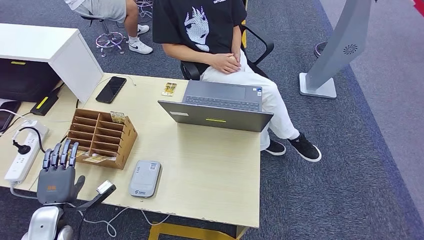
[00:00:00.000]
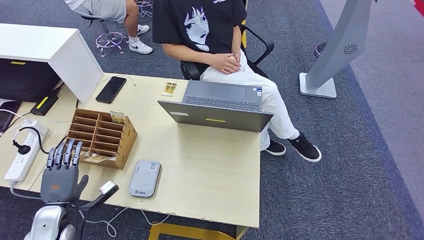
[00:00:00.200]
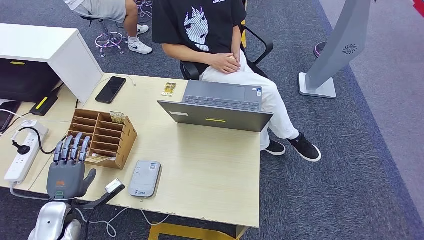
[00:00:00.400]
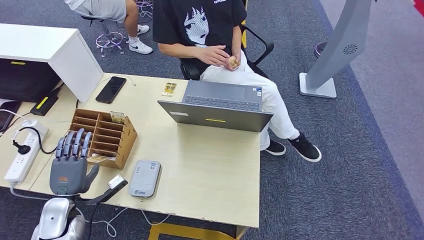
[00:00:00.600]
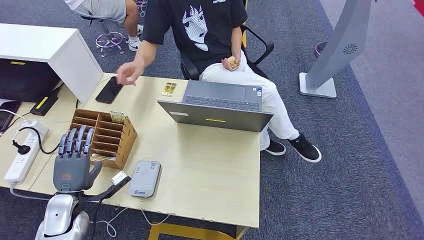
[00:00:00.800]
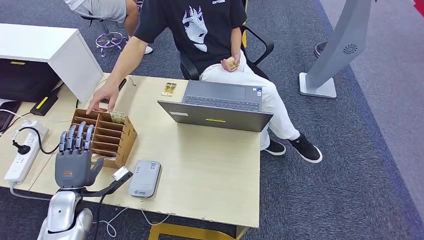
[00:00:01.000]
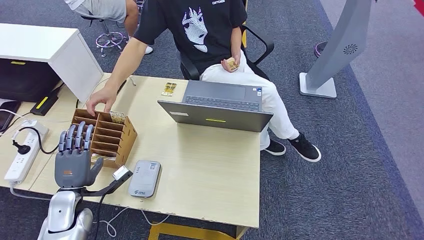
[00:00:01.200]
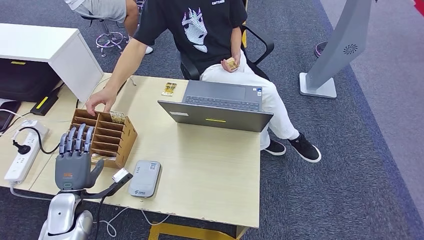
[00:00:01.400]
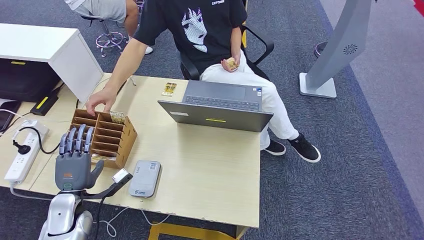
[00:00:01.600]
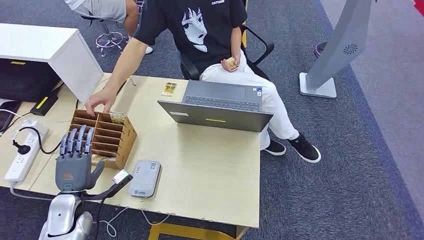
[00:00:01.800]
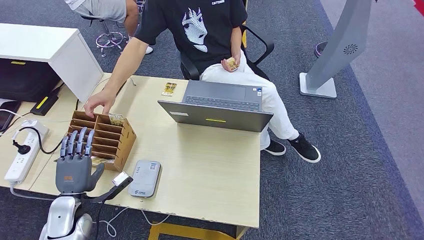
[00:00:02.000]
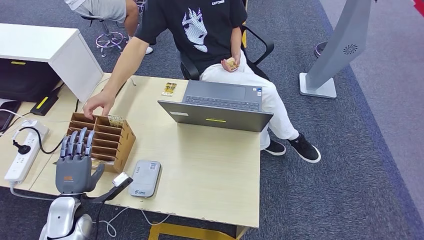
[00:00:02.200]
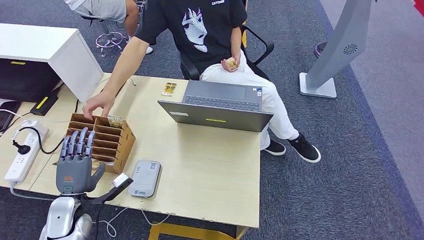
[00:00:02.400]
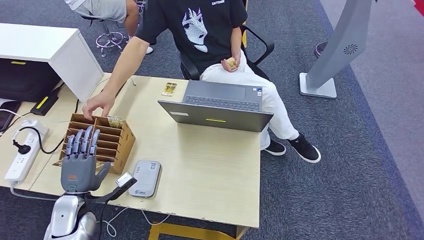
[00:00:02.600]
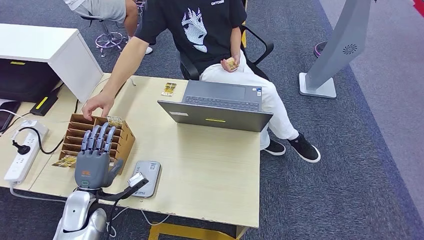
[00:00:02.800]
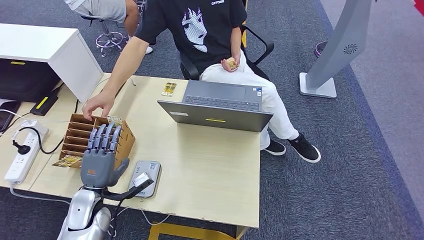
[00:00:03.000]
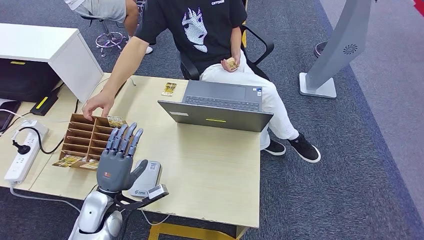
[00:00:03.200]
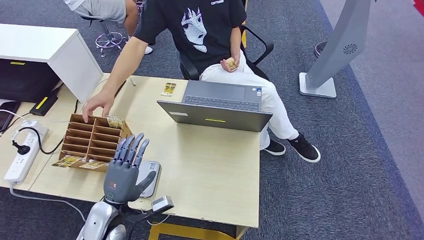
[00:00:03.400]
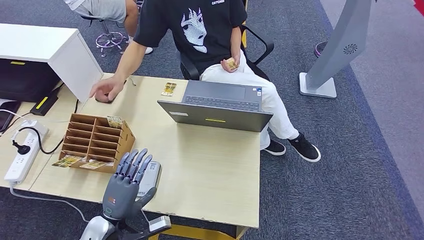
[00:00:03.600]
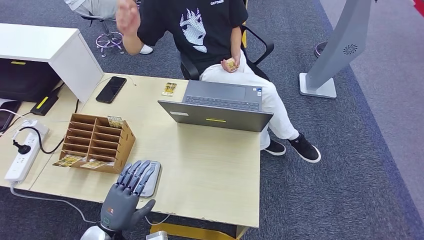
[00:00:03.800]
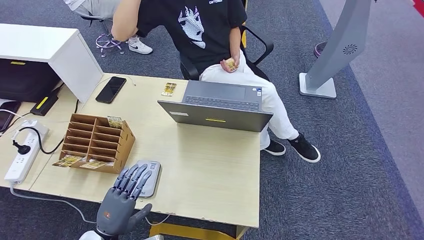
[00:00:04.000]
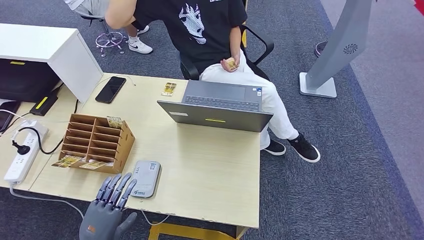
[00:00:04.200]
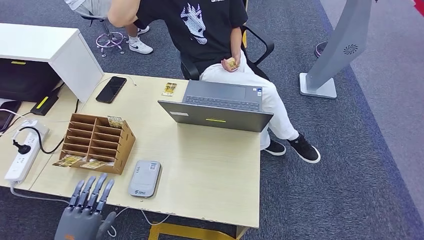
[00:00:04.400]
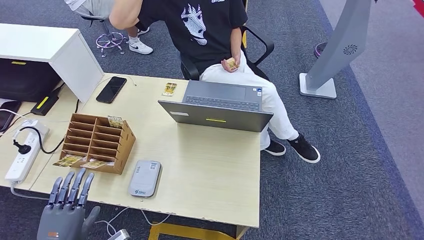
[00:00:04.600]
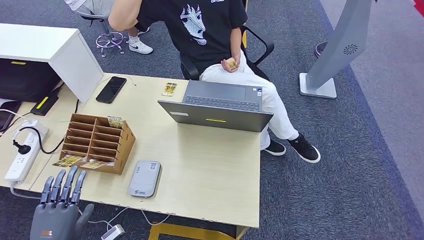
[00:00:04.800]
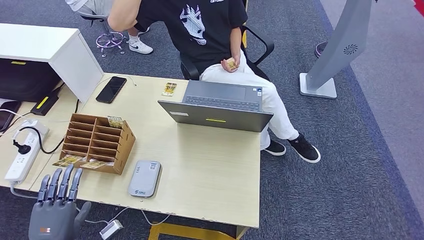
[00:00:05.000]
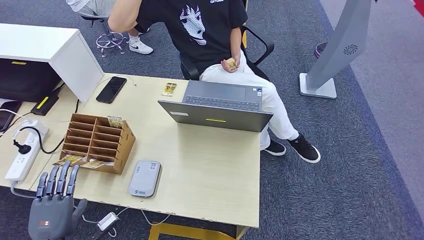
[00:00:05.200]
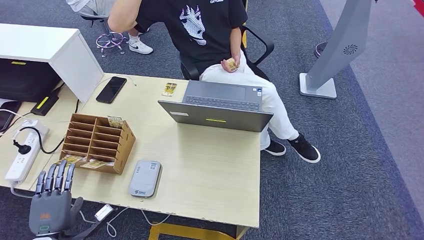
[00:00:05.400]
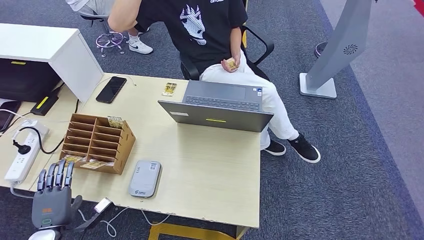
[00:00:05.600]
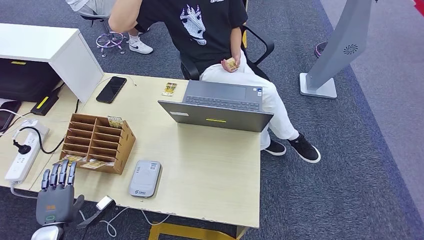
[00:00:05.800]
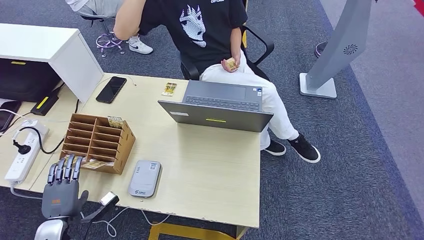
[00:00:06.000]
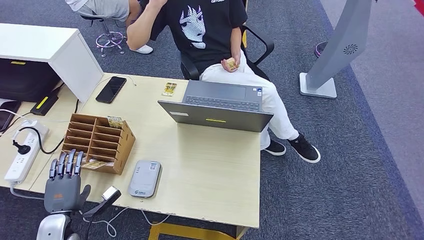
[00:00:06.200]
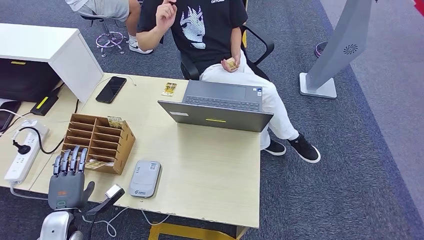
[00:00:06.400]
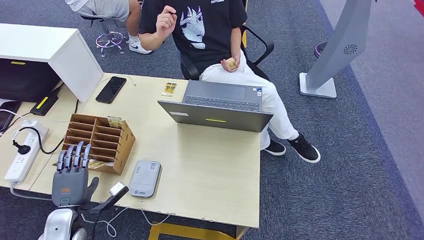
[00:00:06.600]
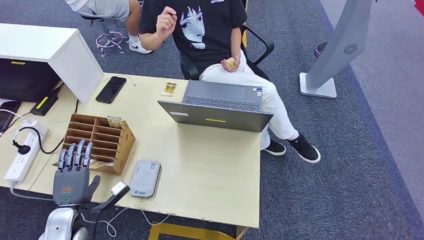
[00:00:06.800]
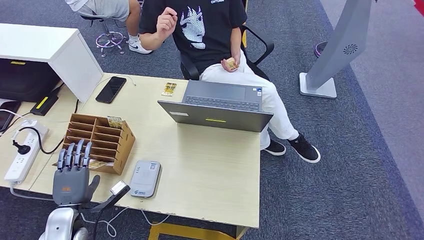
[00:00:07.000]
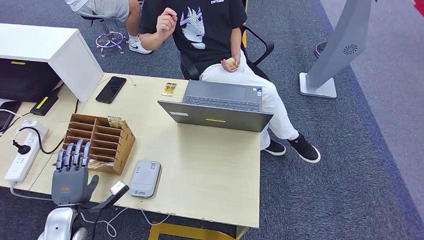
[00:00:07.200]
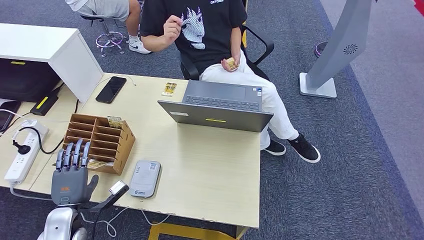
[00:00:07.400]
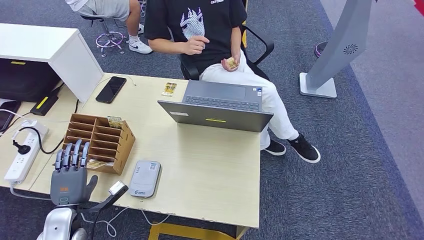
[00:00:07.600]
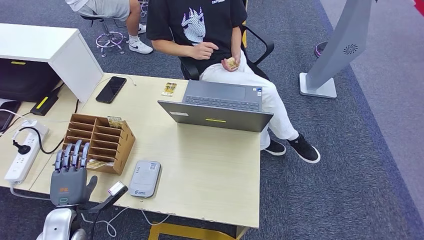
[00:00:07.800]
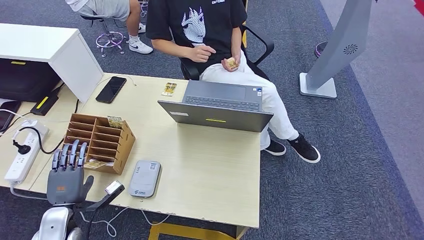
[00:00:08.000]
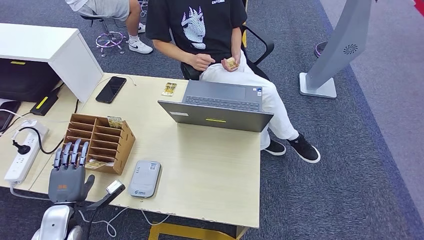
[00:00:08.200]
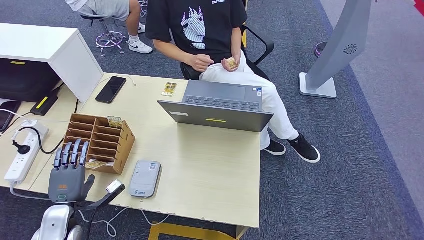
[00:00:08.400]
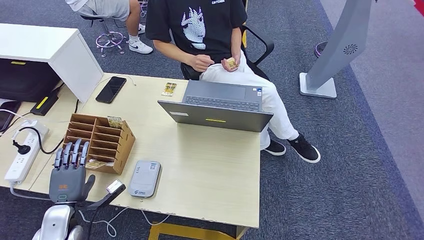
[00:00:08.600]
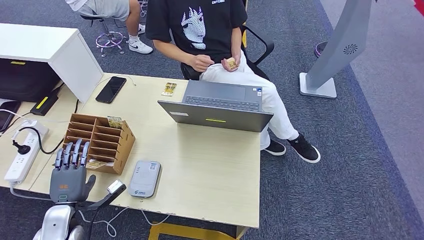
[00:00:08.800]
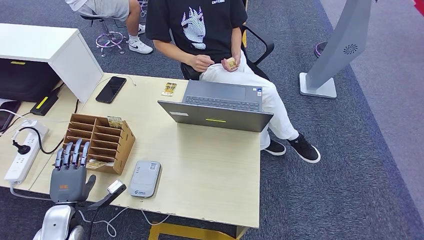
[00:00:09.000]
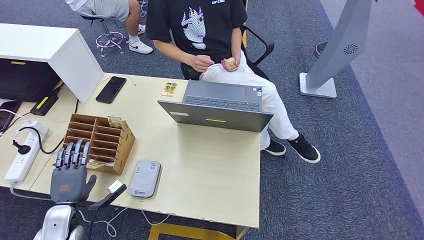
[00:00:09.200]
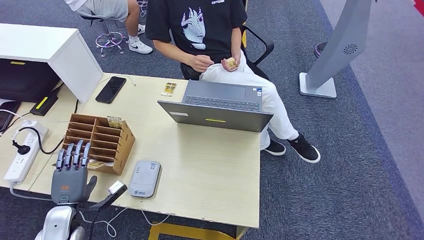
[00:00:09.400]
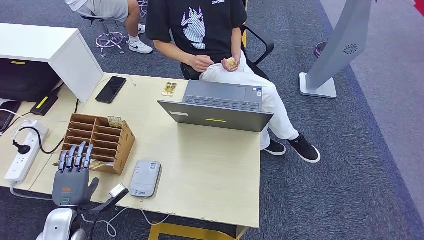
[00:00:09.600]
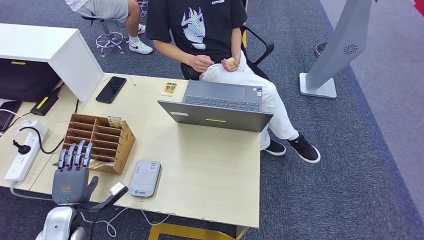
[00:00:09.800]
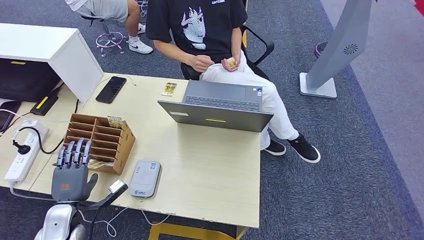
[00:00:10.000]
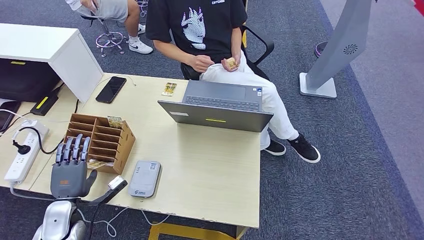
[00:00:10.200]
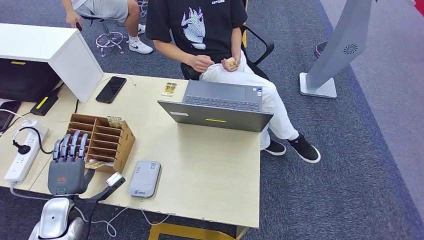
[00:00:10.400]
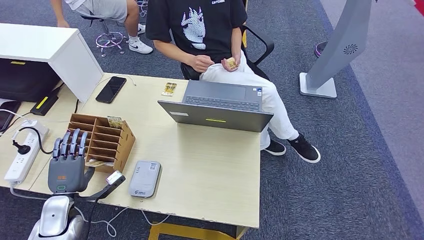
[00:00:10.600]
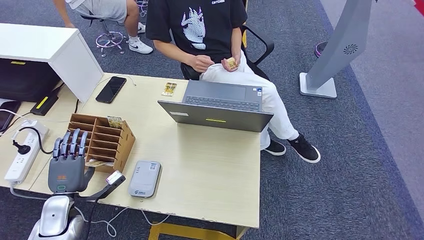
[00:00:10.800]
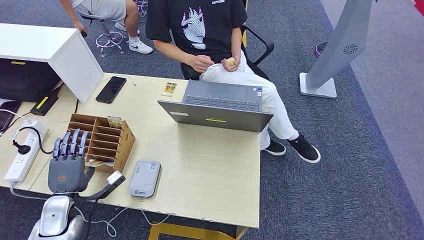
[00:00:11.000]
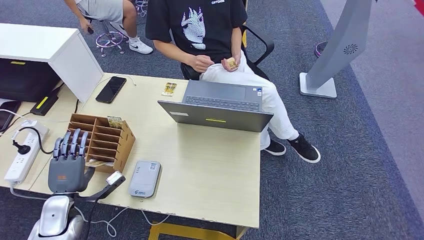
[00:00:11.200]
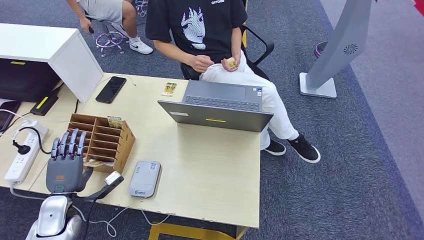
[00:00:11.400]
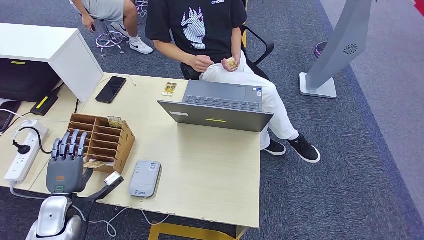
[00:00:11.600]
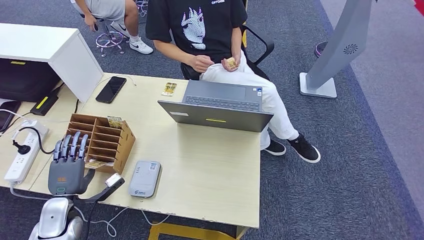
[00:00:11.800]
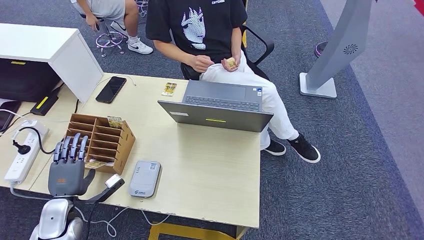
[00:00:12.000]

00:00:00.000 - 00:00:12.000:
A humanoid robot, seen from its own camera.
00:00:00.000 - 00:00:01.600: The left hand travels to the right by roughly 5 cm.
00:00:01.600 - 00:00:03.000: The left hand travels to the right by about 5 cm.
00:00:03.000 - 00:00:04.400: The left hand travels backward by roughly 15 cm.
00:00:04.400 - 00:00:06.000: The left hand shifts roughly 15 cm to the left, forward and downward.
00:00:06.000 - 00:00:09.000: The hands move only a little.
00:00:09.000 - 00:00:10.400: The hands make only small movements.
00:00:10.400 - 00:00:12.000: Both hands stay put.

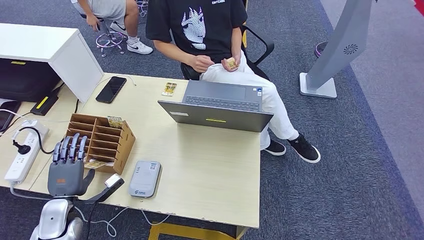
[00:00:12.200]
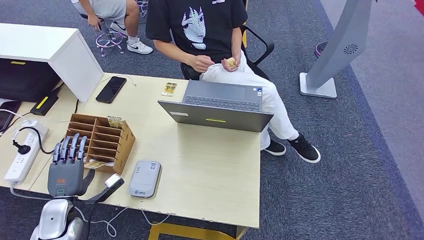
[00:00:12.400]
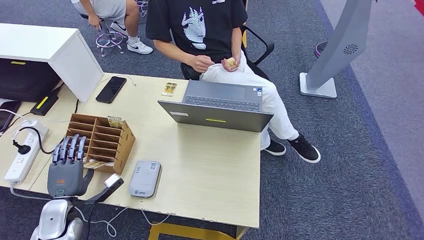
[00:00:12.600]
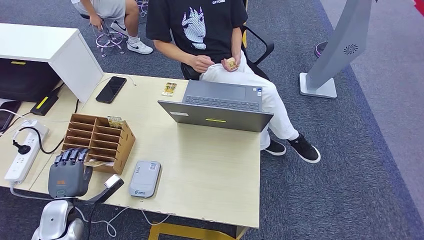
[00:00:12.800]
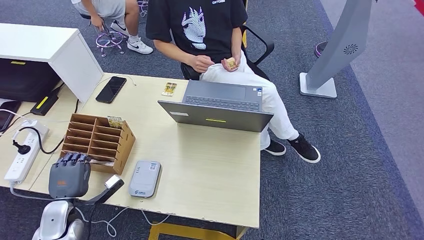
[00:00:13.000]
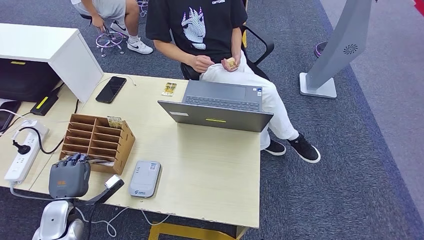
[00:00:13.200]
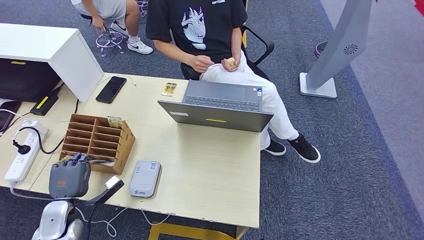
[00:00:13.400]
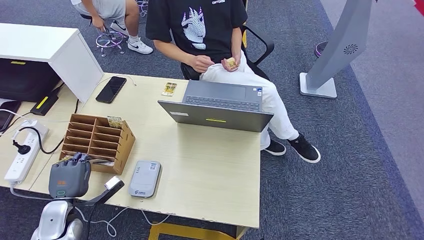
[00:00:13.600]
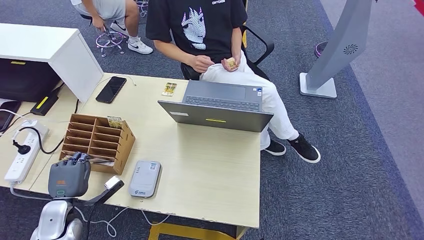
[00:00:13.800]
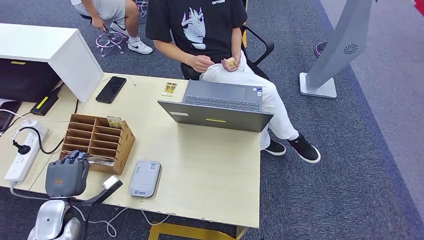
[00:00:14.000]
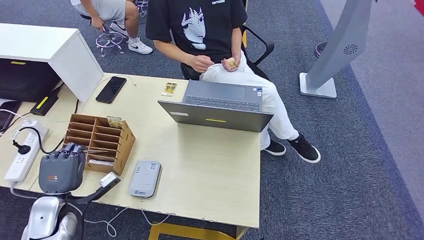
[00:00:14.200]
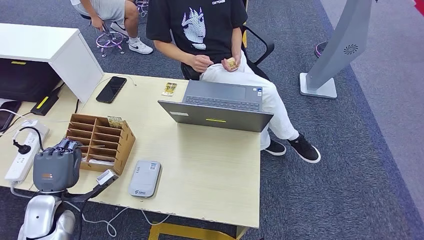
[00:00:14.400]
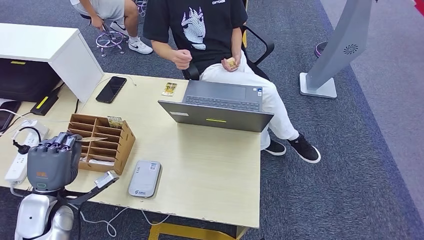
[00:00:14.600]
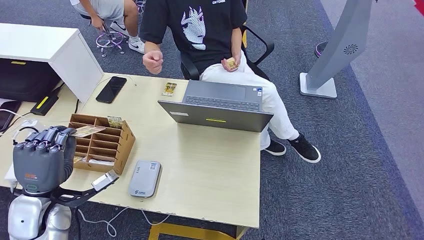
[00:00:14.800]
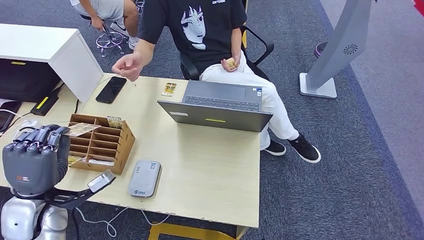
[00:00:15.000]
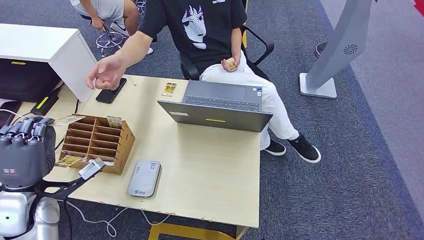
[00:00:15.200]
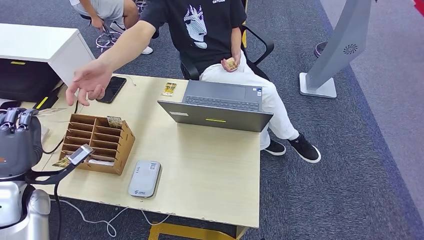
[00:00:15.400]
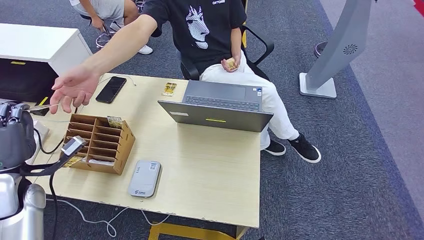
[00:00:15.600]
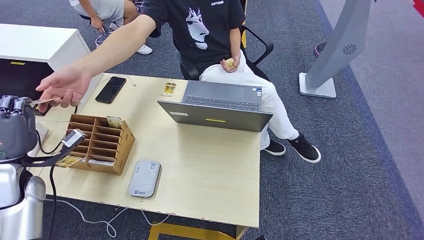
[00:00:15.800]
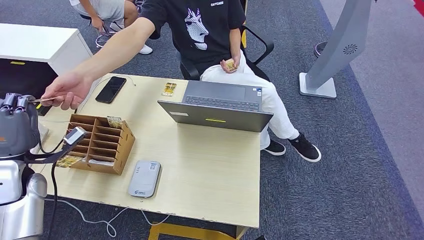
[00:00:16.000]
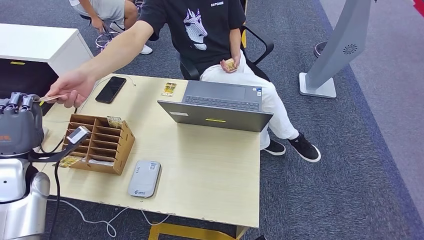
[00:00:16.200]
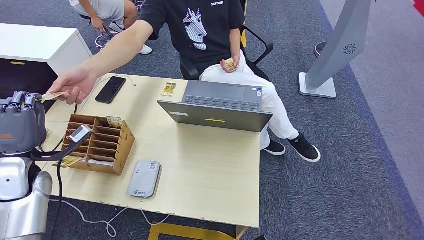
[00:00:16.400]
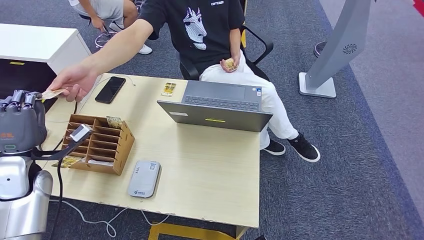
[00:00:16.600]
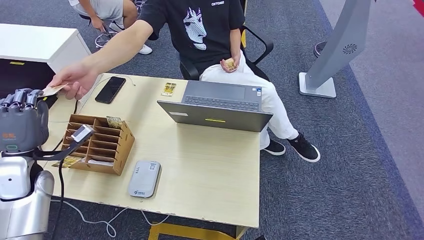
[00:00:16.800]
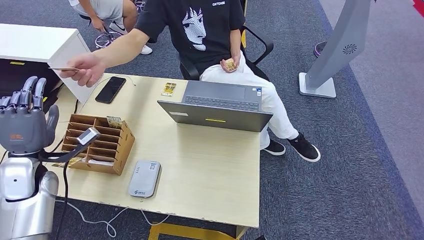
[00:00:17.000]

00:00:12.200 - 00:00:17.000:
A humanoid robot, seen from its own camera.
Step, 00:00:12.200 - 00:00:15.000: Pick up the room key from the key card box.
Step, 00:00:15.200 - 00:00:17.000: Hand the room key to the person.
00:00:12.200 - 00:00:13.800: The two hands keep their place.
00:00:13.800 - 00:00:15.400: The left hand goes about 15 cm upward.
00:00:15.400 - 00:00:17.000: The left hand shifts approximately 5 cm forward.
